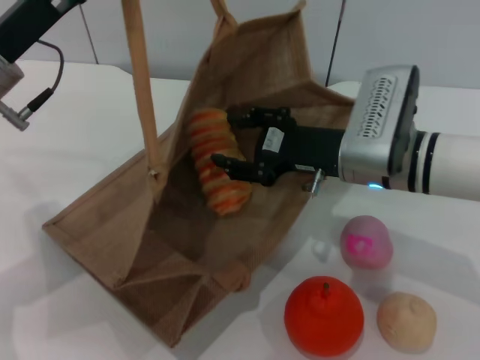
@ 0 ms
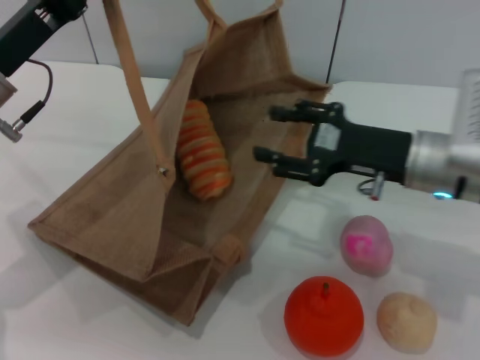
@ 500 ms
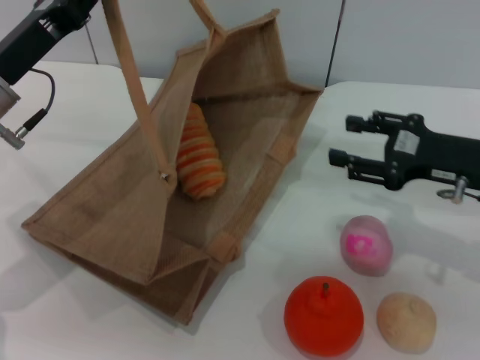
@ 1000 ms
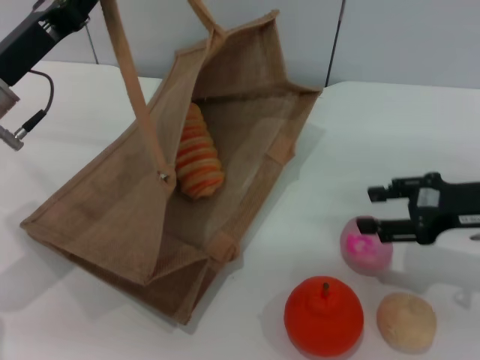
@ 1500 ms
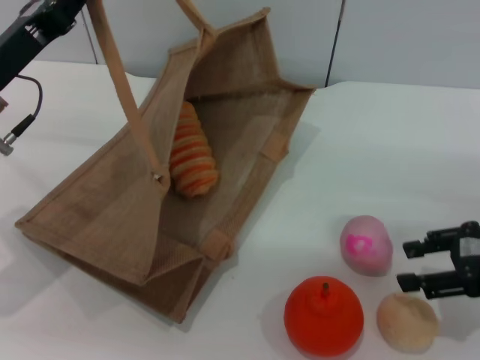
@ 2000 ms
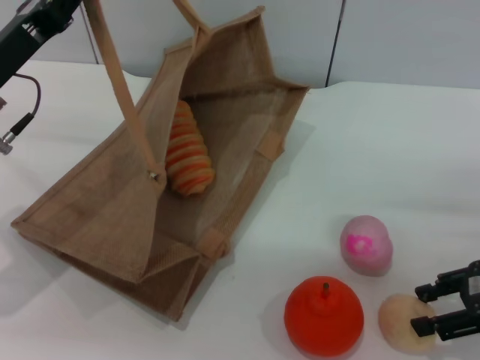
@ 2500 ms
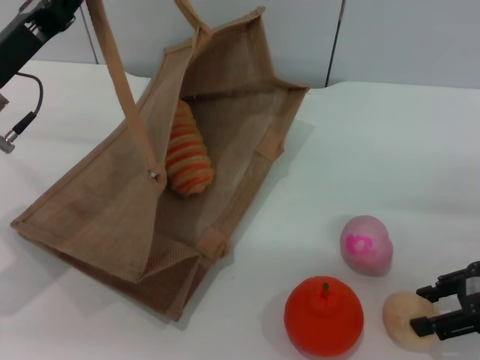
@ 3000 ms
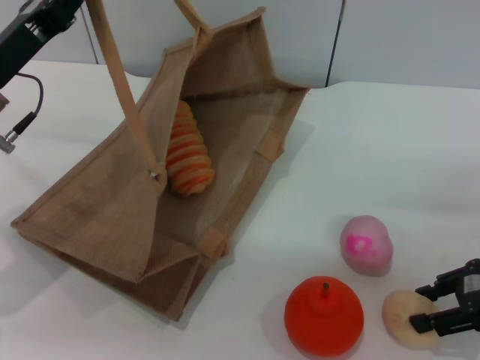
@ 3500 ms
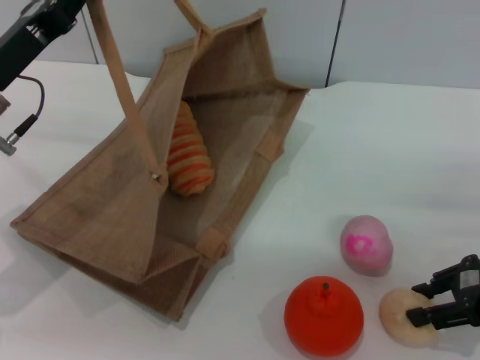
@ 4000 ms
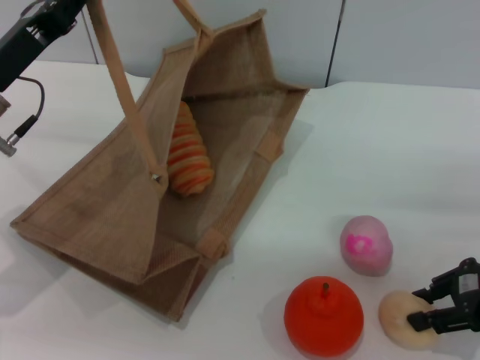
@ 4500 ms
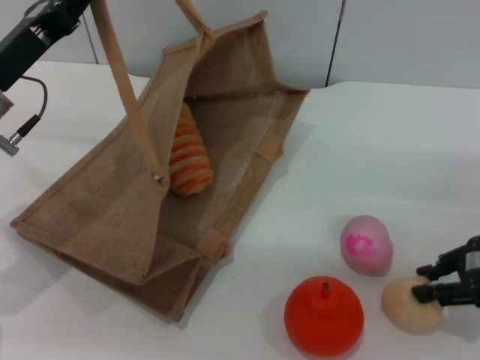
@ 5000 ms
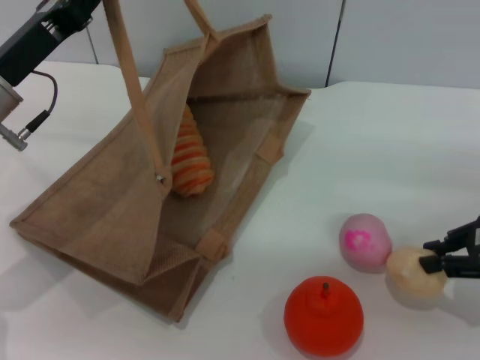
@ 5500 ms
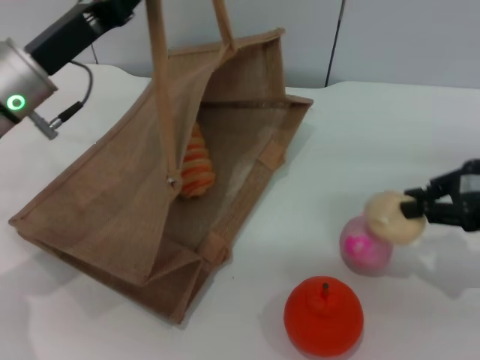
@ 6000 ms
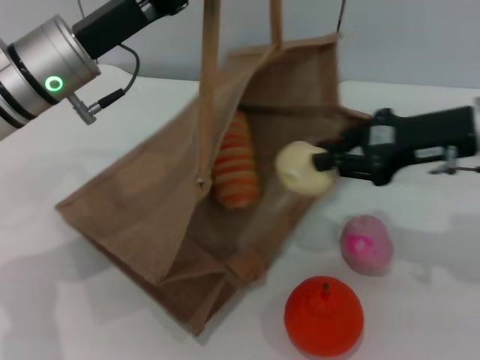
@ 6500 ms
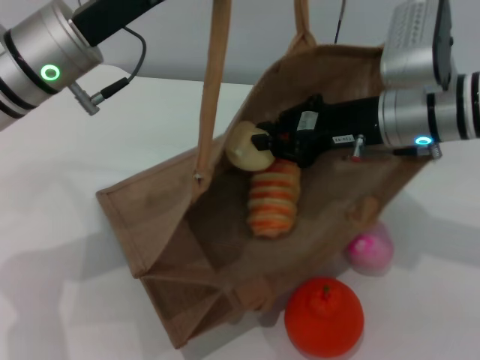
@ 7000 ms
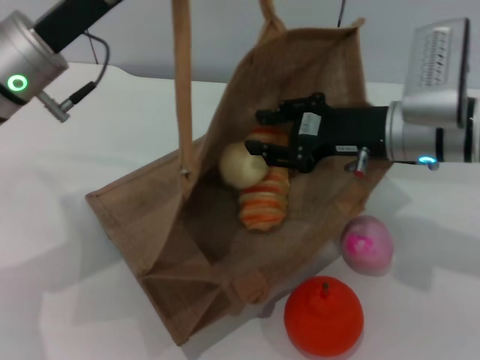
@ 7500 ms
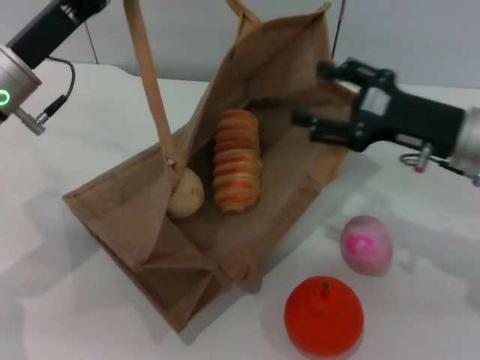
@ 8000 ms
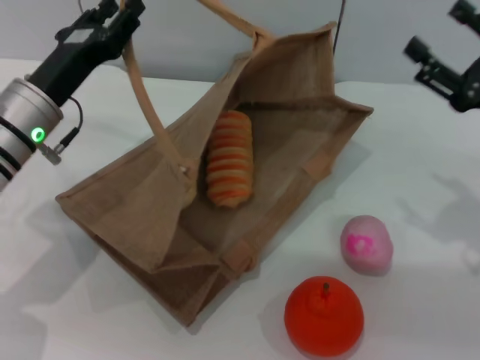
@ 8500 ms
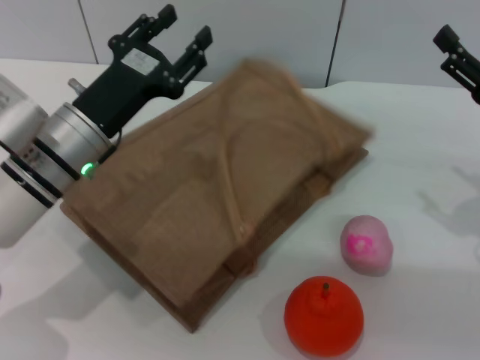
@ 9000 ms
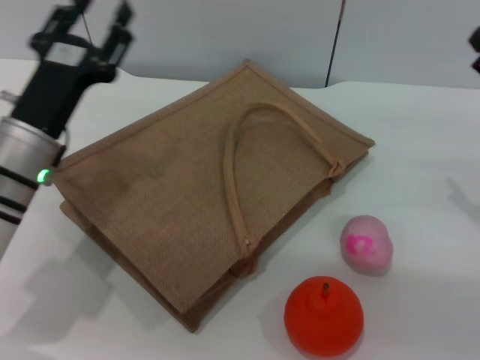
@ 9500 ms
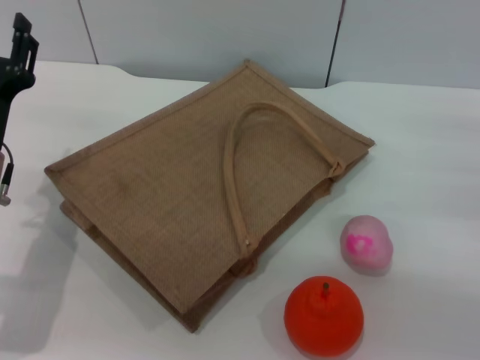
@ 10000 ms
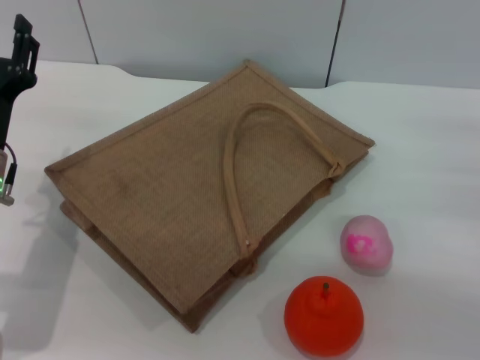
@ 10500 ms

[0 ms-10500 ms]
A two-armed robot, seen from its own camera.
Task of the whole recording: pick up the bread and egg yolk pastry from the table and place it in the brown handbag.
Step, 1000 ms to 5500 ms: Pick up the egg yolk pastry with the right gripper.
Step, 6000 ms to 8000 ms: Place the egg yolk pastry into the woven bag with the right gripper.
Step, 8500 ms to 9500 ms: Lower the woven bag with the left gripper to close it.
0 ms to 2000 ms: The right gripper shifts approximately 20 cm to the right.
2000 ms to 4000 ms: The grippers stay close to where they were, moving slightly.
4000 ms to 6500 ms: The left gripper travels to the right by some 5 cm. The right gripper moves to the left, upward and forward, roughly 15 cm, and closes its fingers.
6500 ms to 8500 ms: The right gripper travels to the right and downward by approximately 10 cm, and opens its fingers. The left gripper heads downward, covering some 5 cm.
8500 ms to 10500 ms: The left gripper heads backward, covering roughly 5 cm, and opens up; the right gripper travels to the right by about 5 cm.
